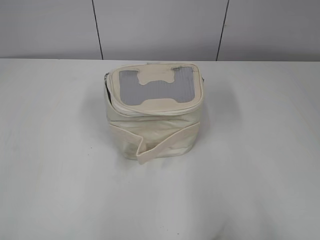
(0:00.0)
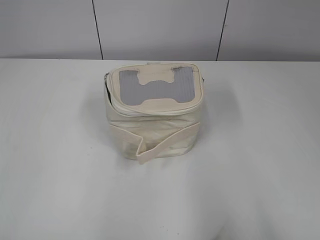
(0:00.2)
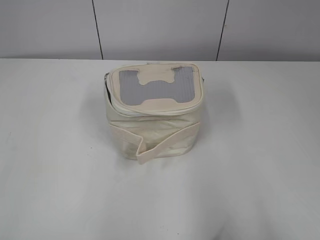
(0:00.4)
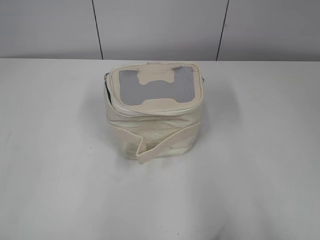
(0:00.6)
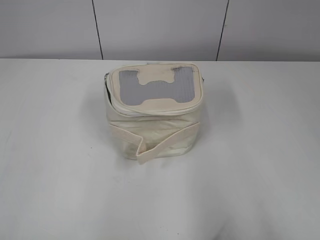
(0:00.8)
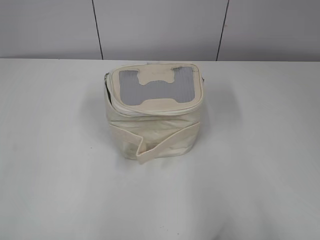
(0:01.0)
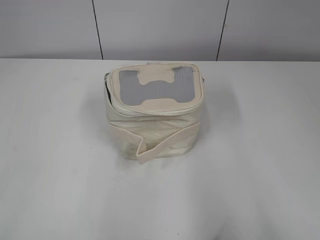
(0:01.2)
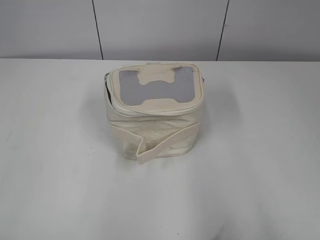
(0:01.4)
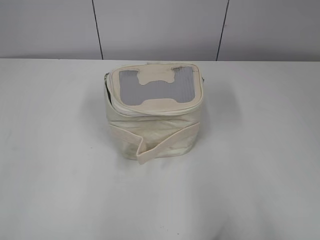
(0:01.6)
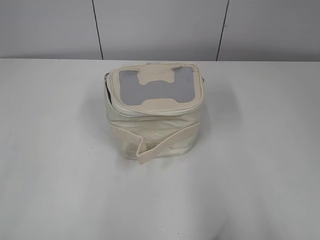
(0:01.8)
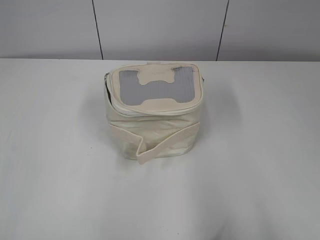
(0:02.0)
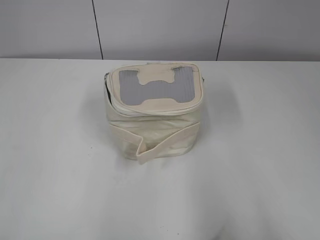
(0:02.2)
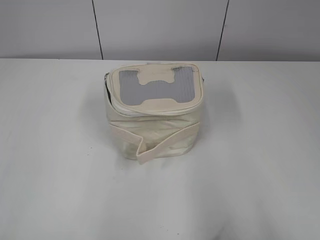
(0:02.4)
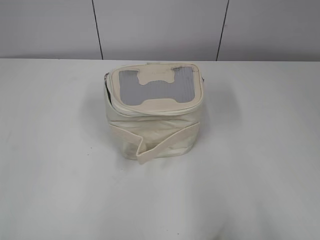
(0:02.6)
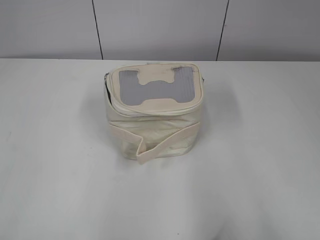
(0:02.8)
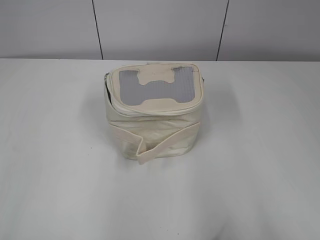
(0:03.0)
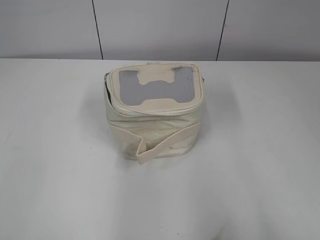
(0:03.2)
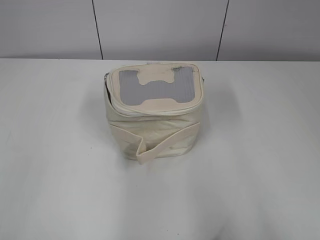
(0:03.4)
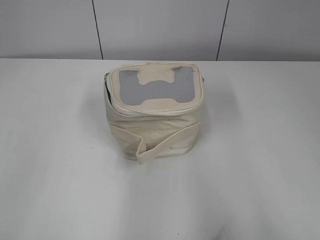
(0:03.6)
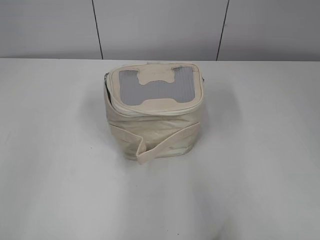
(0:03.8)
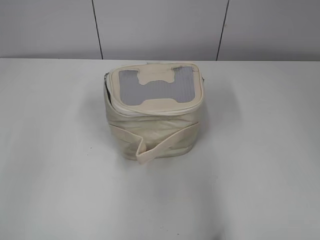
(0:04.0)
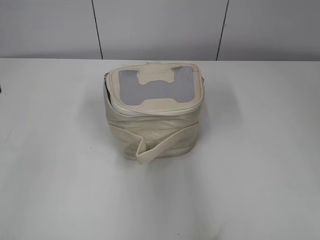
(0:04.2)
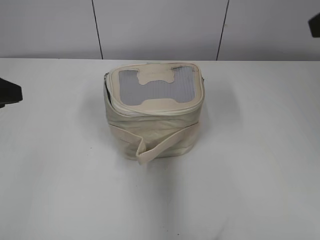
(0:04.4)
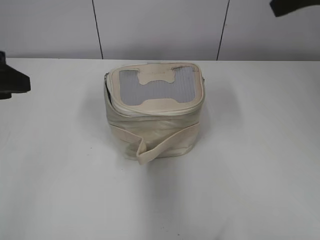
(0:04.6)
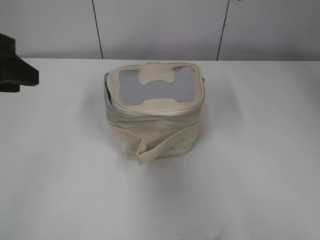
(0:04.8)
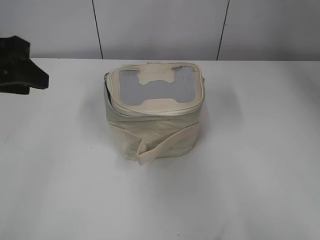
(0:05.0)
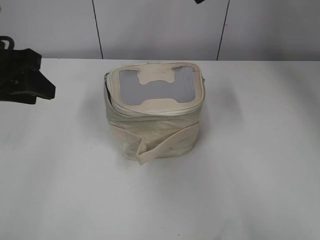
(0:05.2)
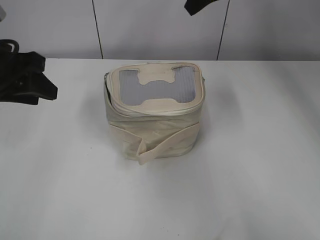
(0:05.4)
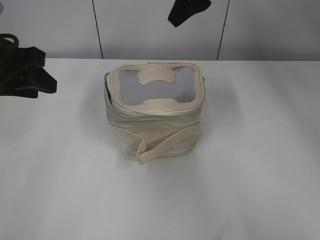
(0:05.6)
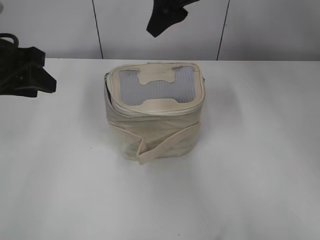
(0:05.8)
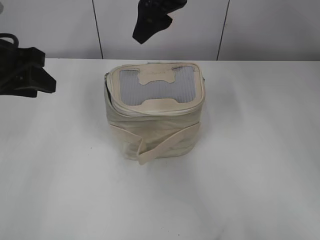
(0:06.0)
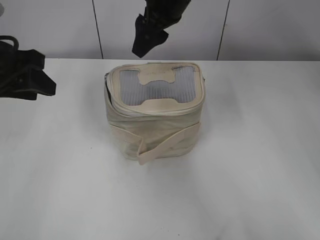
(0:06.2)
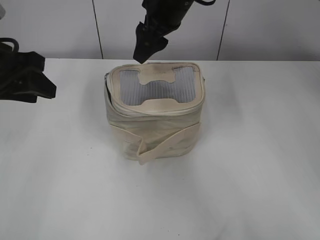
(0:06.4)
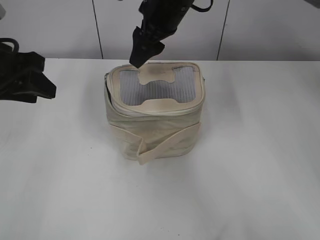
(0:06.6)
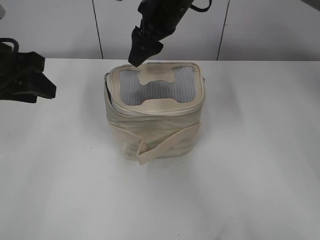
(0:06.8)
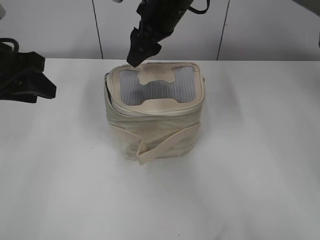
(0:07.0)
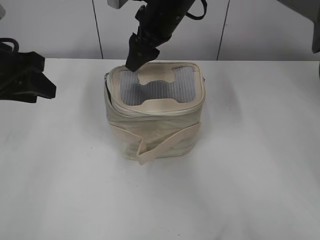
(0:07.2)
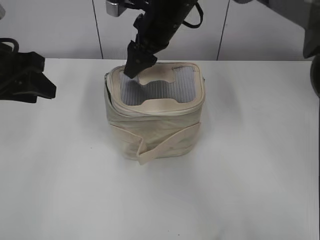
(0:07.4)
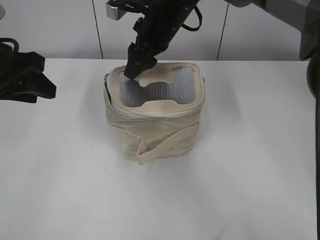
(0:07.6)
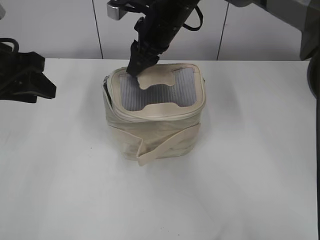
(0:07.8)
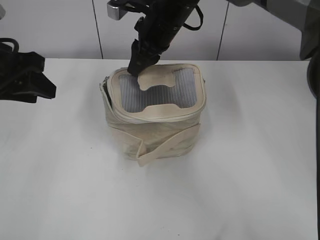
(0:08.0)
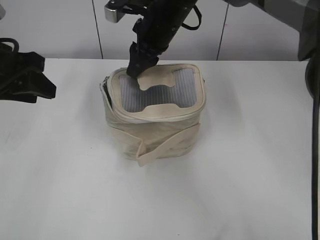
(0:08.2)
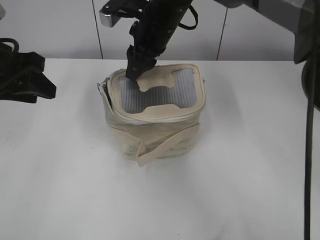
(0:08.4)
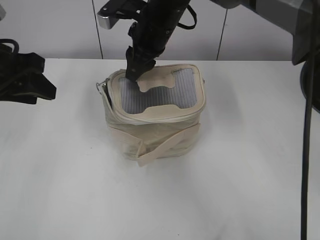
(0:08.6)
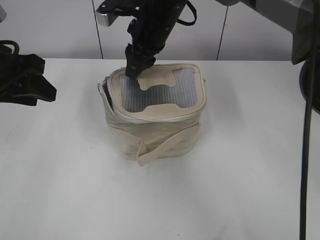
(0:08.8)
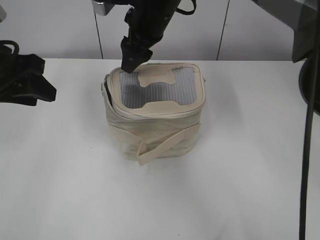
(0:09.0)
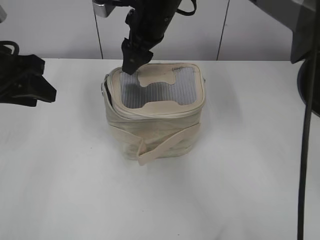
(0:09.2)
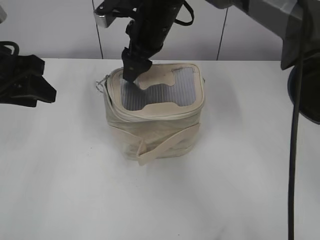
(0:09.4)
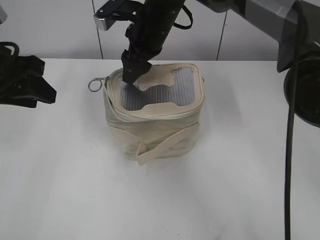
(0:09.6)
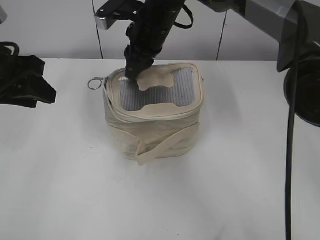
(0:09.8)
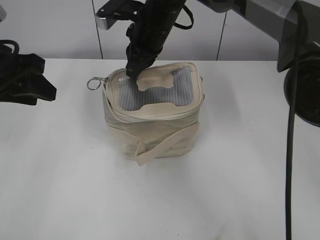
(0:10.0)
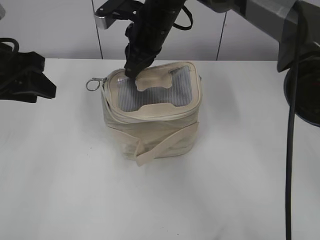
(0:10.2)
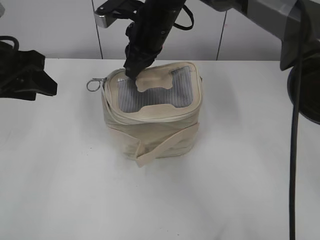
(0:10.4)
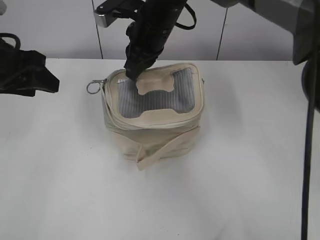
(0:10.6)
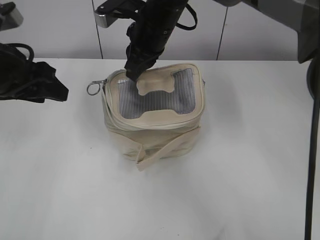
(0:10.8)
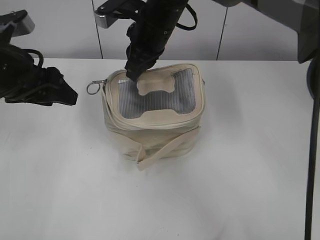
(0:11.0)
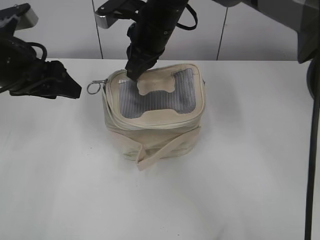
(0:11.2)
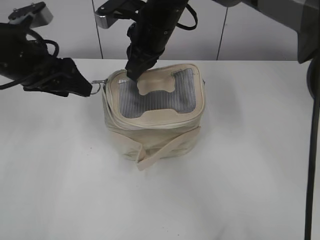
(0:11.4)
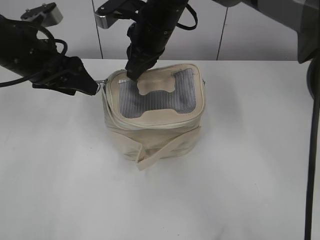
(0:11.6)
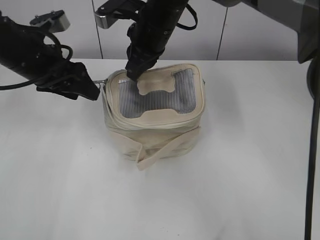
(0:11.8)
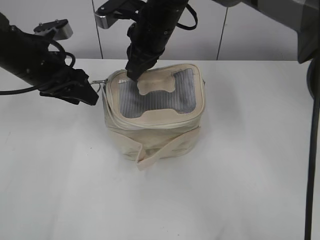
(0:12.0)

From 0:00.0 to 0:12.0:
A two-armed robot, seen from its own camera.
From 0:03.0 to 0:04.4: The right gripper travels forward and upward by about 25 cm. Meanwhile the left gripper heads forward, covering roughly 20 cm.
From 0:04.4 to 0:06.0: The left gripper heads forward, covering some 5 cm; the right gripper shifts roughly 25 cm to the left and forward.
From 0:06.0 to 0:07.6: The right gripper travels downward by some 10 cm.
From 0:07.6 to 0:09.0: The right gripper closes, then opens again.
From 0:09.0 to 0:10.4: The right gripper closes up.
From 0:10.4 to 0:12.0: The left gripper moves forward and downward, roughly 10 cm.

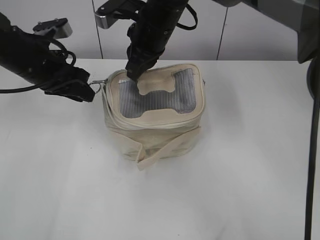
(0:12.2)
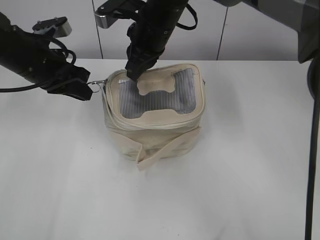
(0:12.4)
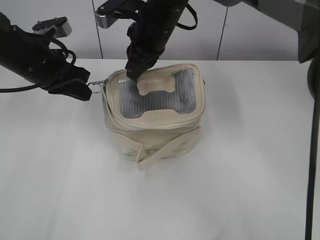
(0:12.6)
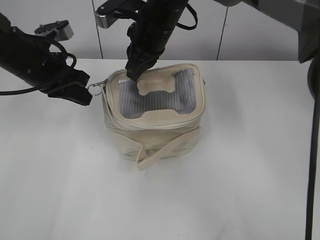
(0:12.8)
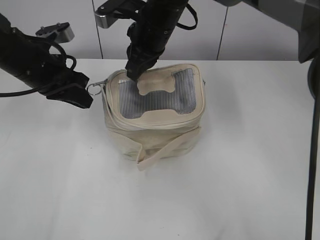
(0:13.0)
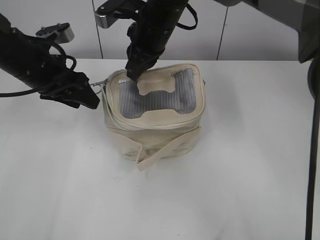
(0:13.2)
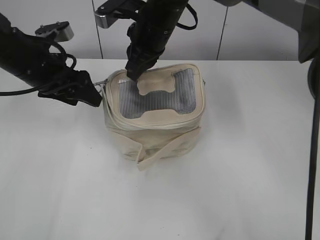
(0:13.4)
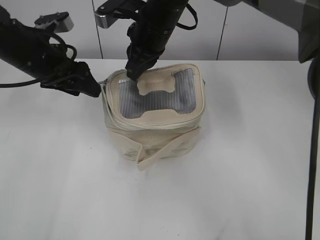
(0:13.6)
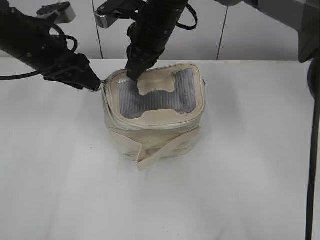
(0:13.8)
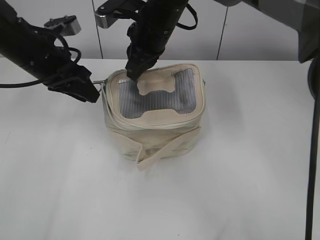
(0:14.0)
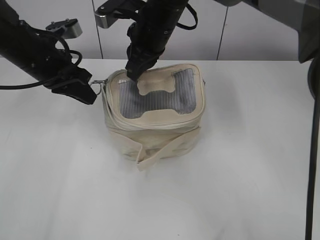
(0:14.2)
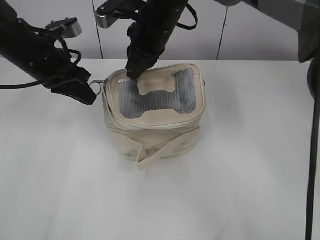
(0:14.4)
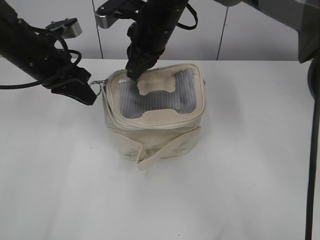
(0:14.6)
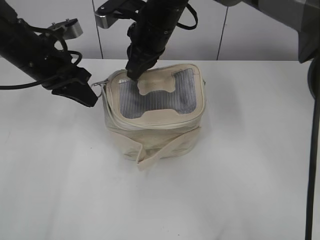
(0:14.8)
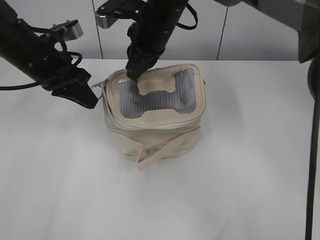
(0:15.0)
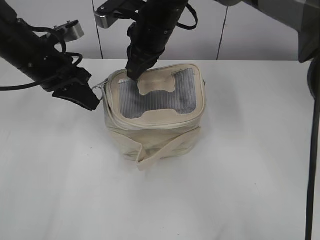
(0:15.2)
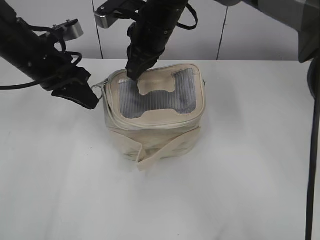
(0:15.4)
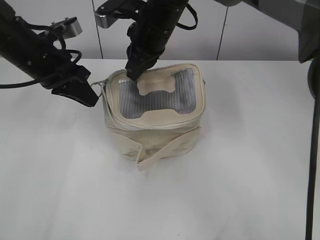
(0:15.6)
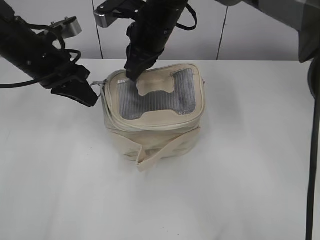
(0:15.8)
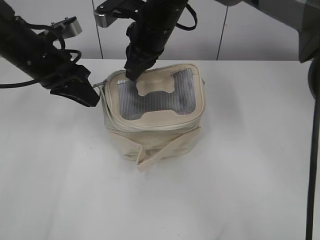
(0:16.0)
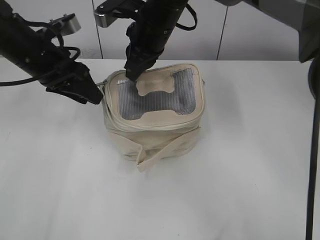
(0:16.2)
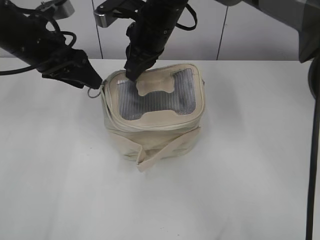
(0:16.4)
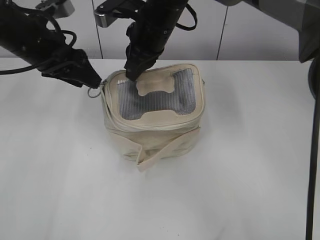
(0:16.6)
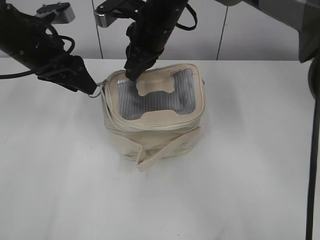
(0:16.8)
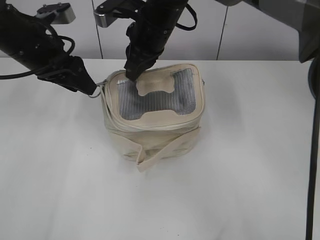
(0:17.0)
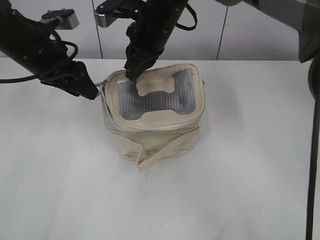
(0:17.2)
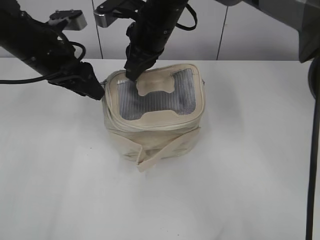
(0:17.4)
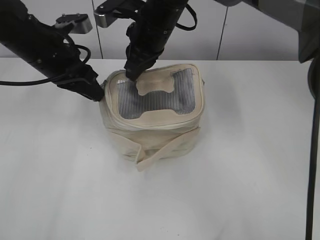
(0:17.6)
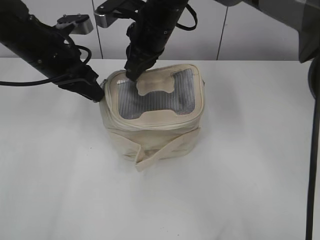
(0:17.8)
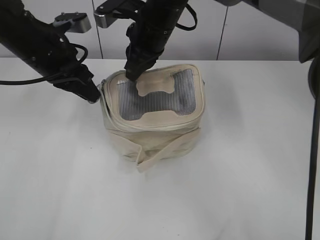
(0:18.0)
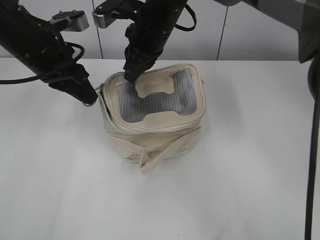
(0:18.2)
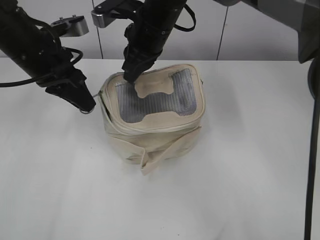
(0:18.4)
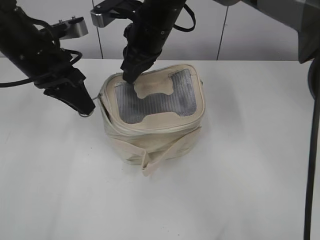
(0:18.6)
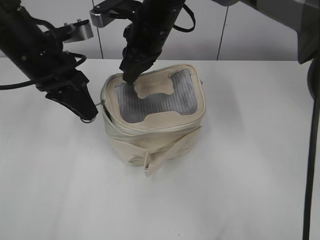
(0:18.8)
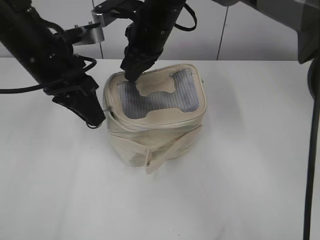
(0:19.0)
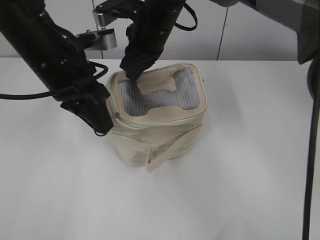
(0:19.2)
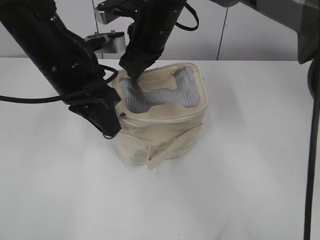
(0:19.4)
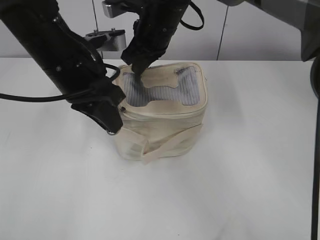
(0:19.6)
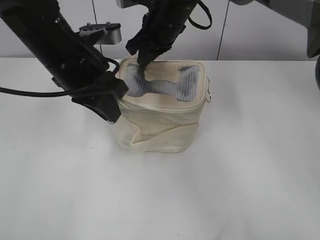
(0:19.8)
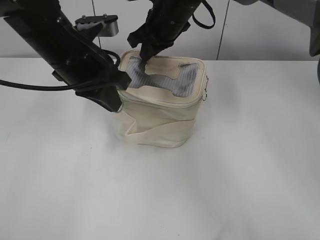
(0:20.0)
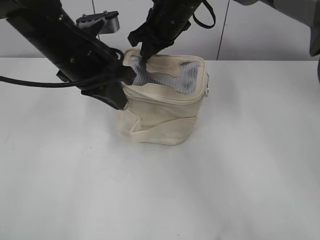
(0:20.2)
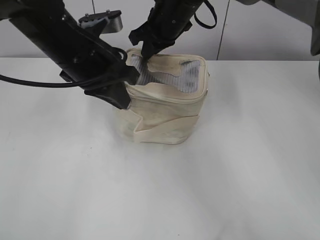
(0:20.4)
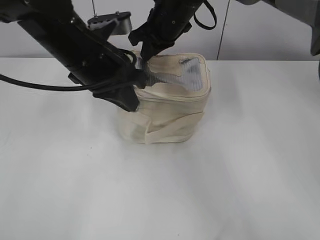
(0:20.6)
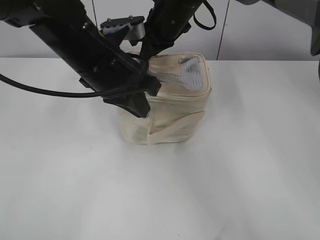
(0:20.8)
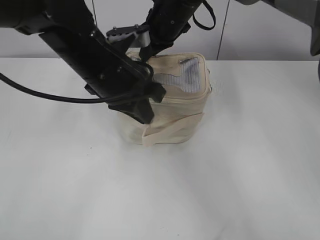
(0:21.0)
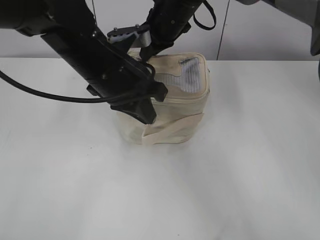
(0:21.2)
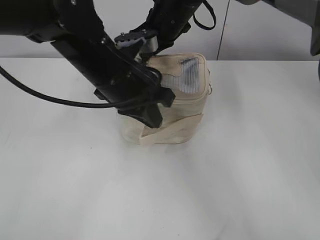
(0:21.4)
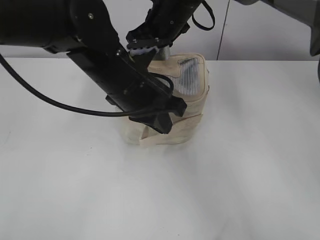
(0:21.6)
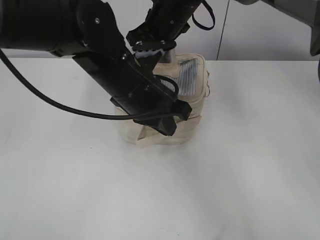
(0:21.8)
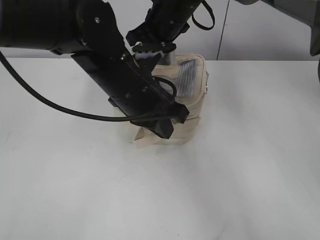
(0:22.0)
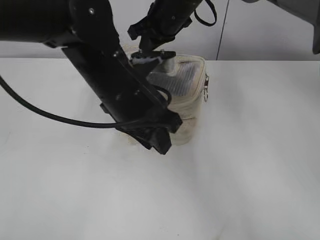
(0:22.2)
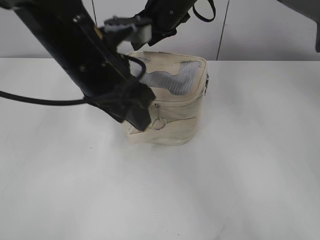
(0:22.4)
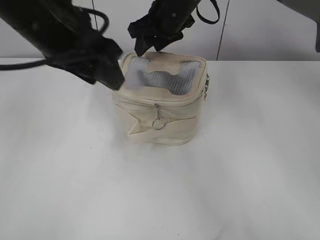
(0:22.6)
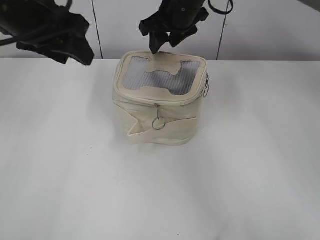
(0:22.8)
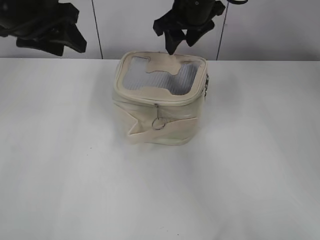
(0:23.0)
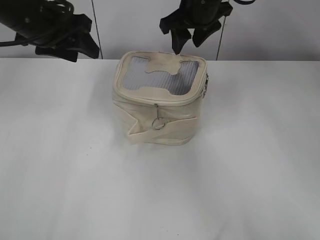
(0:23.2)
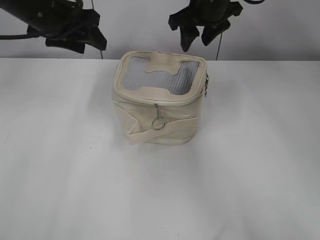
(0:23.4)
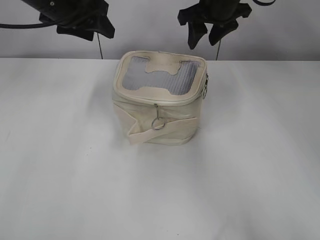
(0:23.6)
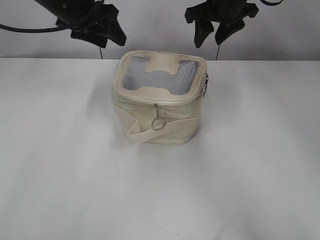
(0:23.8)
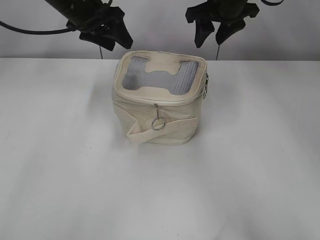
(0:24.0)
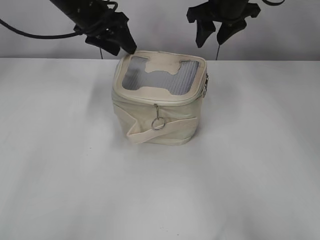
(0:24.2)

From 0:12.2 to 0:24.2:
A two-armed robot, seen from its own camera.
Step, from 0:12.2 to 0:22.0: Zip up the bag with your left hand.
From 0:12.2 to 0:13.8: The left gripper closes, then reopens.
From 0:13.8 to 0:15.2: The left gripper closes up.
From 0:15.2 to 0:16.6: The left gripper opens.
From 0:16.6 to 0:18.2: The left gripper closes its fingers.
From 0:18.2 to 0:19.8: The left gripper goes roughly 5 cm to the right.
From 0:19.8 to 0:21.2: The left gripper changes place by some 5 cm.
From 0:21.2 to 0:22.6: The right gripper opens up, while the left gripper is displaced upward and to the left by some 10 cm, and opens up.
From 0:22.6 to 0:24.2: The left gripper heads forward, covering approximately 20 cm, while the right gripper is displaced to the right by about 10 cm.
